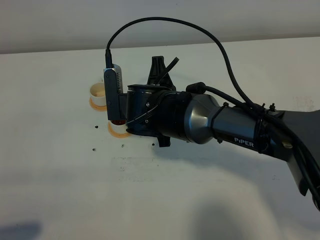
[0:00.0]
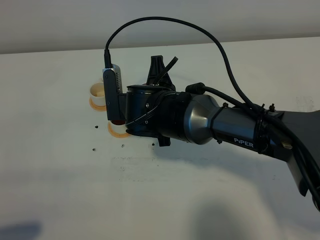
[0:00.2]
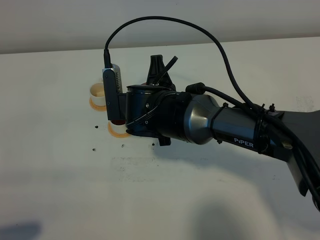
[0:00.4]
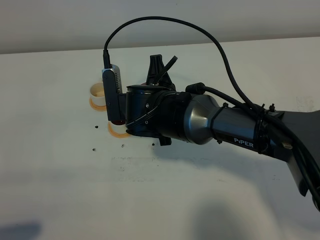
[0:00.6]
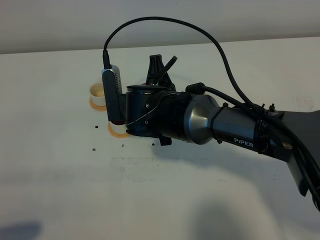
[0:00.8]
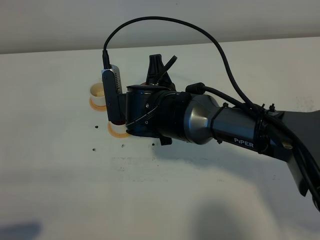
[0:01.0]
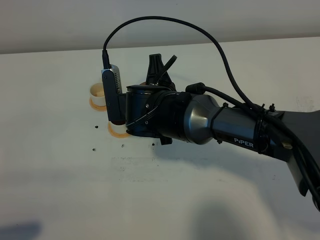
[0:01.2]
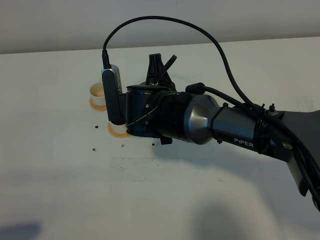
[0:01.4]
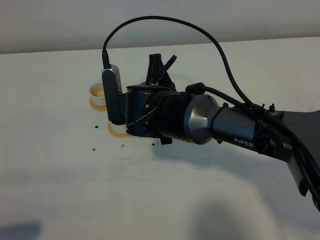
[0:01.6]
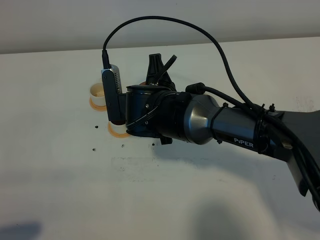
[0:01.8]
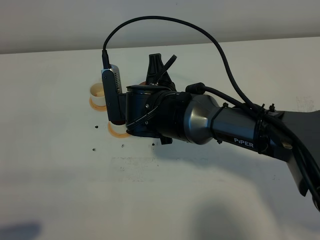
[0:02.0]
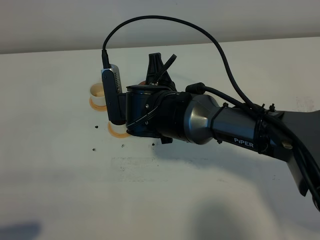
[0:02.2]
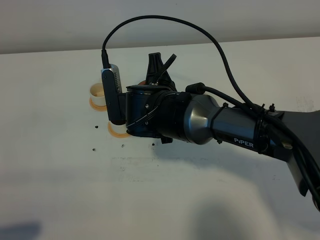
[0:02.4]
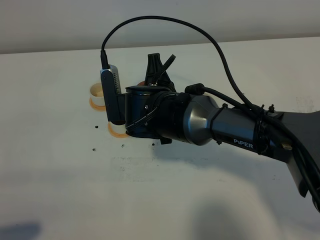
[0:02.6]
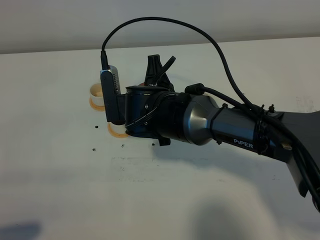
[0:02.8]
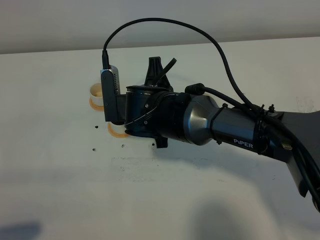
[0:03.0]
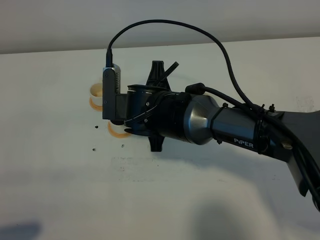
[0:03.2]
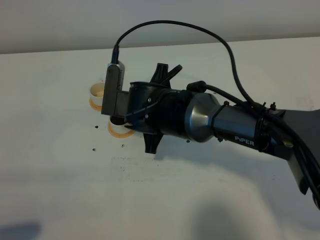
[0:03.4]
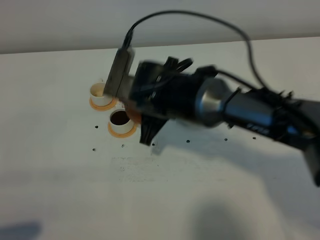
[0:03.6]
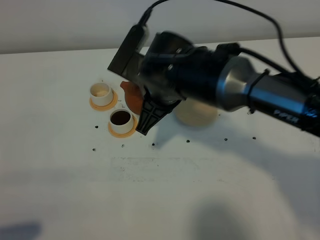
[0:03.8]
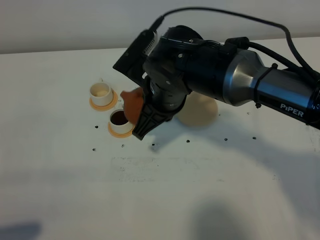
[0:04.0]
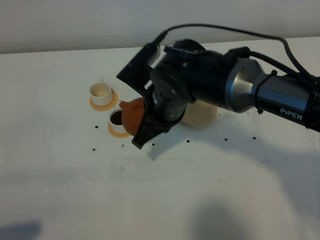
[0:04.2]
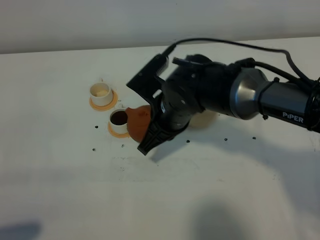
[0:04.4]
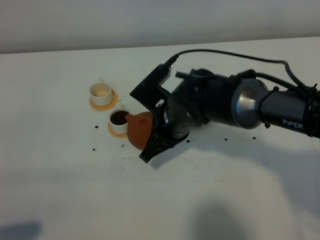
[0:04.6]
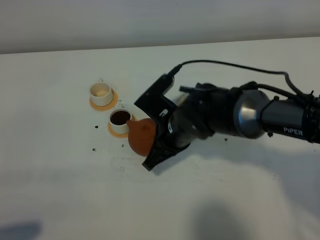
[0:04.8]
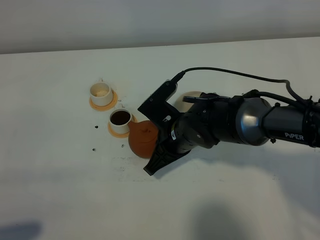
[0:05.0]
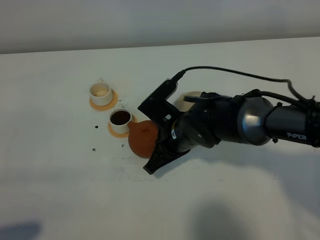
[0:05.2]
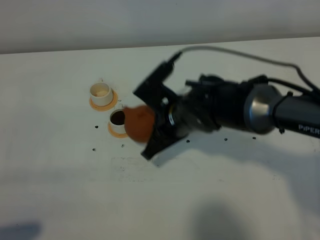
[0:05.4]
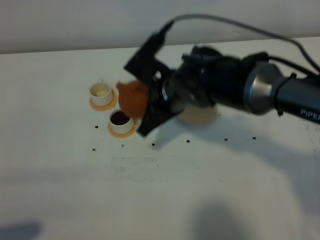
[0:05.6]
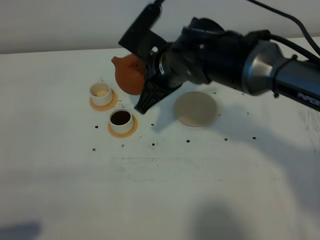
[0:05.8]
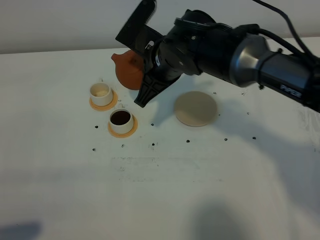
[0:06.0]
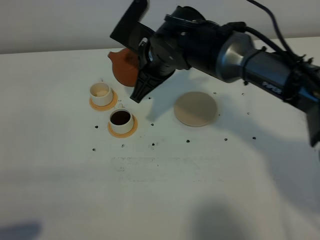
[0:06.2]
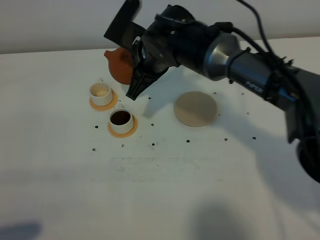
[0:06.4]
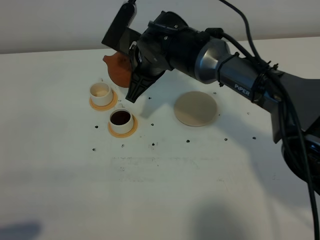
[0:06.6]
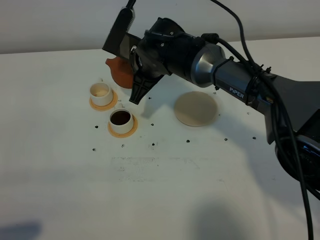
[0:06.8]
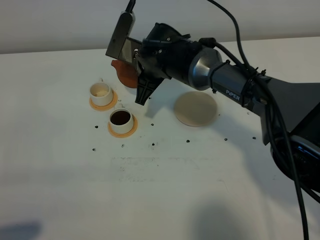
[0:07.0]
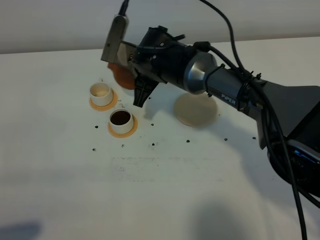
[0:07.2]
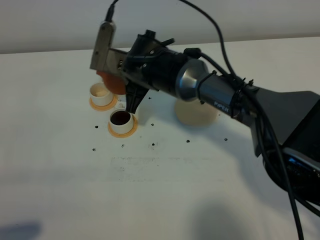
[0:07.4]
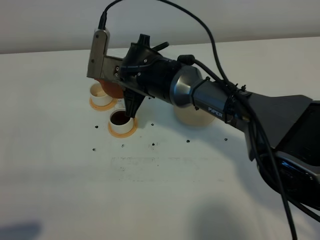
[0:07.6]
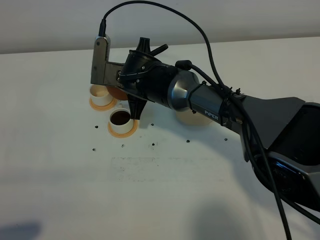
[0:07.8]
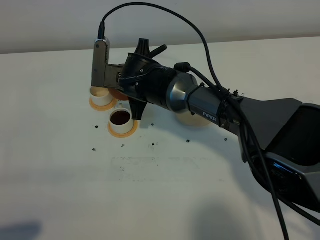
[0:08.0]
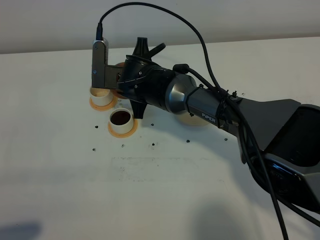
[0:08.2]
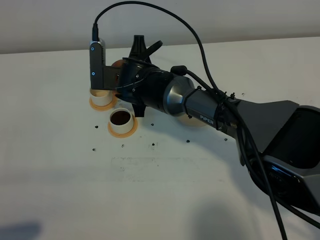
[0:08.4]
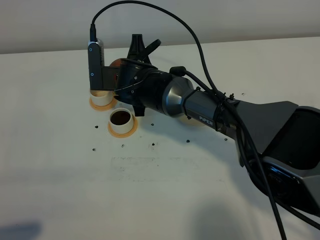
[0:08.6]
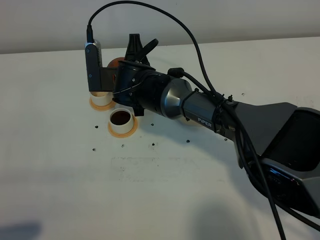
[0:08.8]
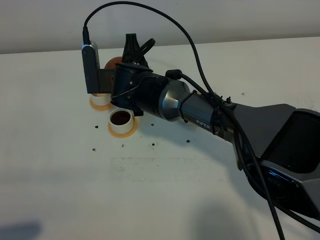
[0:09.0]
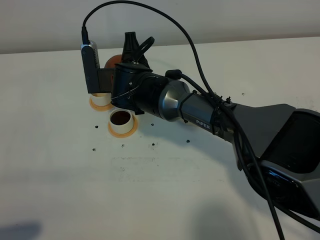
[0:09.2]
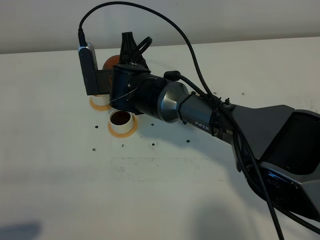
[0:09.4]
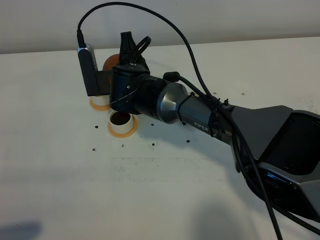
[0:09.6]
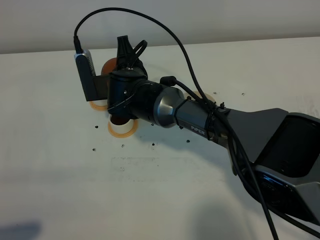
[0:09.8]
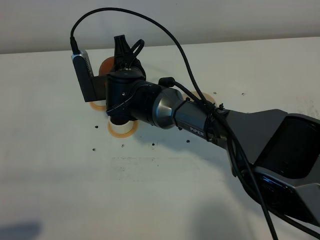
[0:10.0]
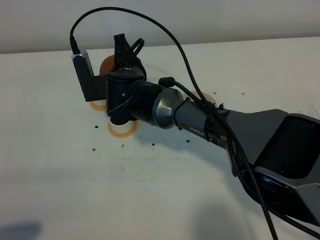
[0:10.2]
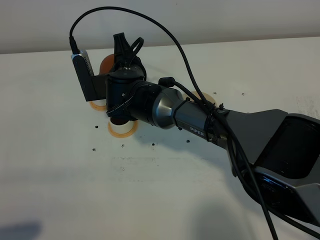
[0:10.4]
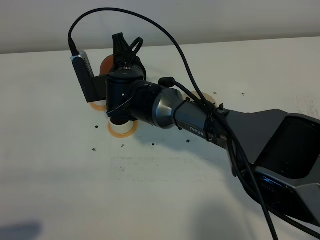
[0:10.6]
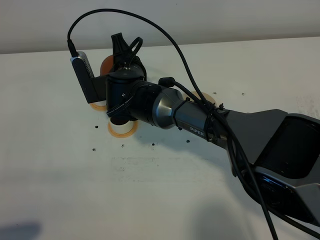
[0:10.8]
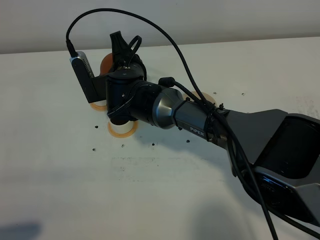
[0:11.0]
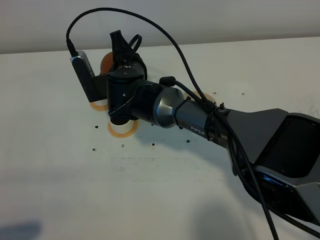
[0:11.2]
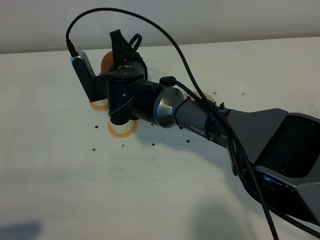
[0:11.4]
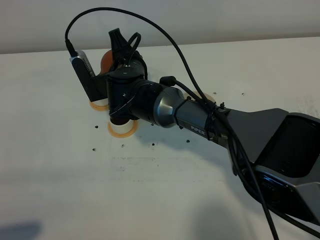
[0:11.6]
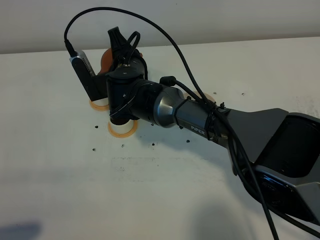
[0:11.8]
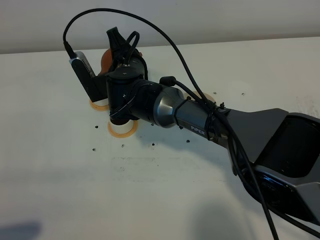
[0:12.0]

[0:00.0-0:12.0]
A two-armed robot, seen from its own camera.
Task of the whole recording: grasp the brown teapot and pour the tea into the two white teacups one by one, put the brown teapot back in its original place.
Step, 0:00.0 to 0:03.0: Pour tea into the teacup with the right gripper.
0:00.0 to 0:01.6: Both grippers stay about where they are.
0:01.6 to 0:03.0: The grippers move only a little.
0:04.4 to 0:06.0: The right gripper moves forward and upward, some 10 cm.
0:06.0 to 0:07.6: The right gripper heads downward and to the left, covering roughly 10 cm.
0:07.6 to 0:09.0: The grippers make only small movements.
0:09.0 to 0:10.4: There are only small adjustments of the grippers.
0:10.4 to 0:12.0: The grippers stay close to where they were, moving slightly.

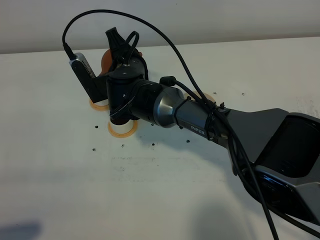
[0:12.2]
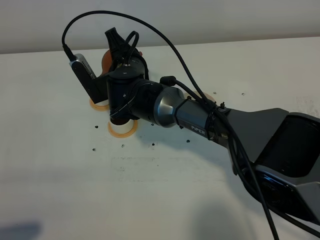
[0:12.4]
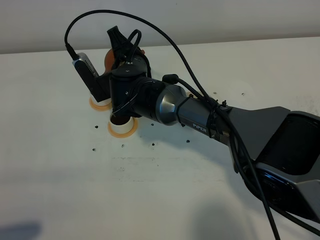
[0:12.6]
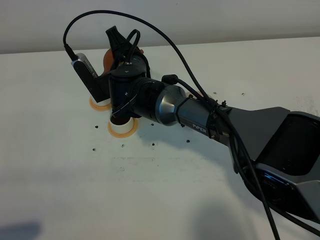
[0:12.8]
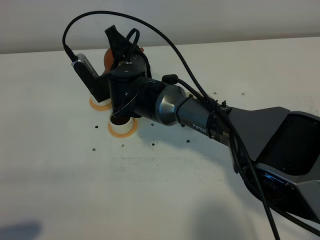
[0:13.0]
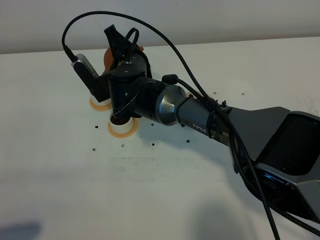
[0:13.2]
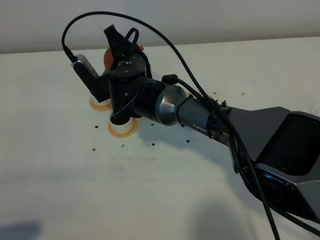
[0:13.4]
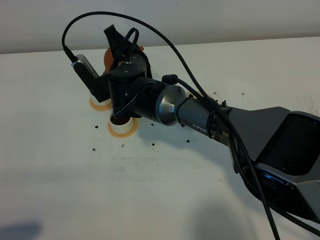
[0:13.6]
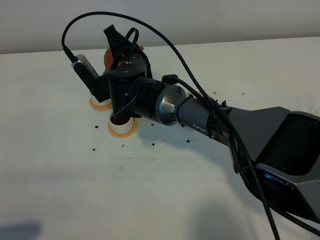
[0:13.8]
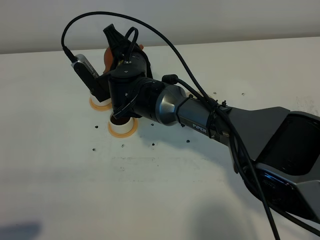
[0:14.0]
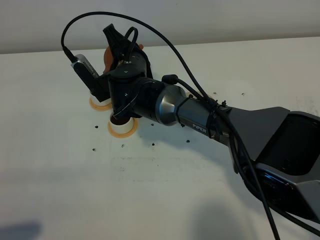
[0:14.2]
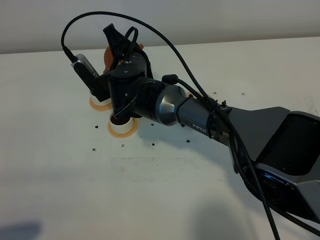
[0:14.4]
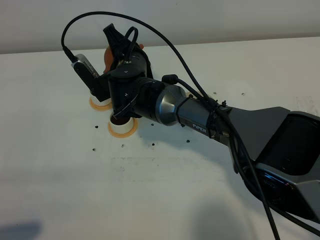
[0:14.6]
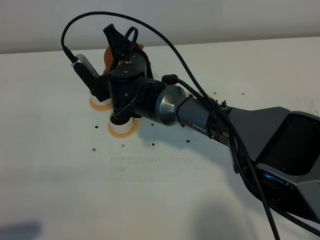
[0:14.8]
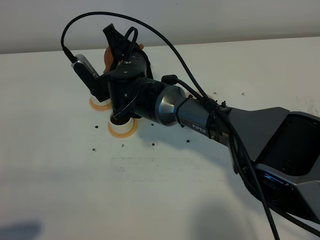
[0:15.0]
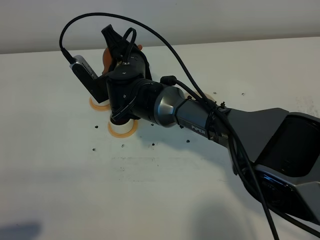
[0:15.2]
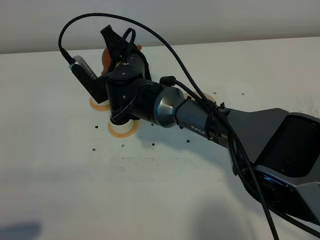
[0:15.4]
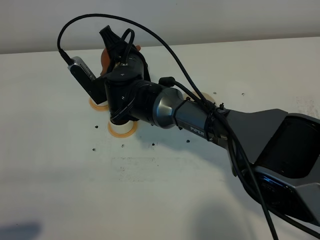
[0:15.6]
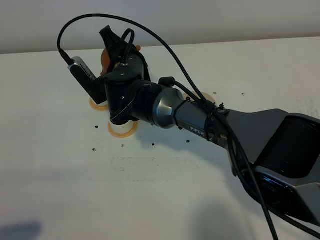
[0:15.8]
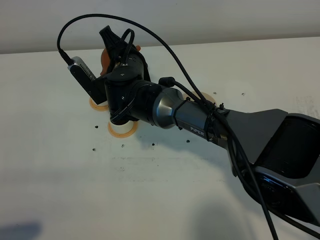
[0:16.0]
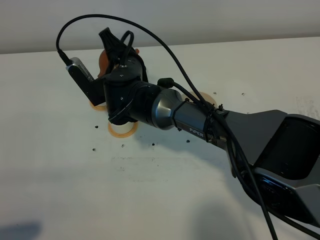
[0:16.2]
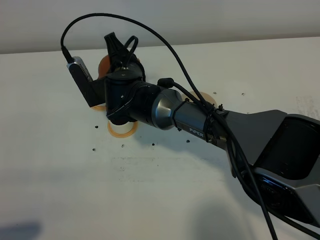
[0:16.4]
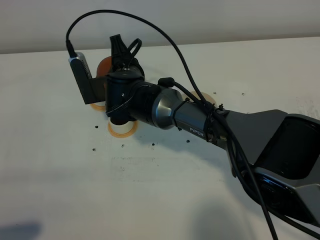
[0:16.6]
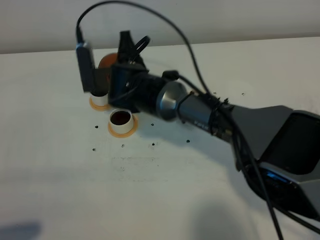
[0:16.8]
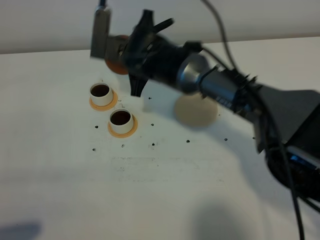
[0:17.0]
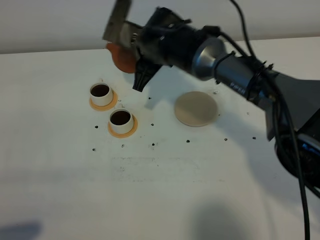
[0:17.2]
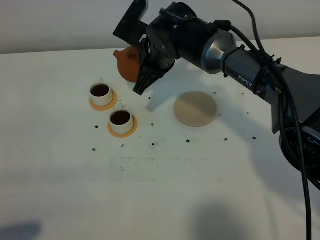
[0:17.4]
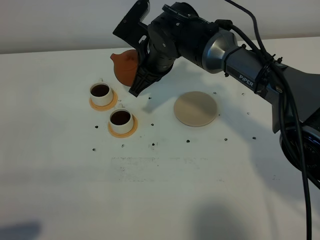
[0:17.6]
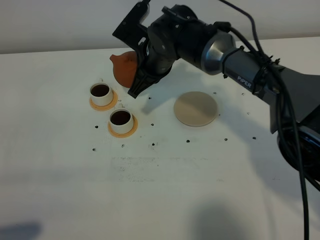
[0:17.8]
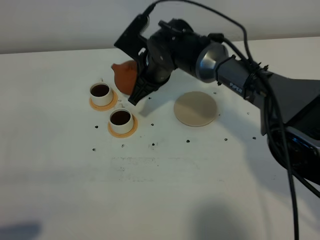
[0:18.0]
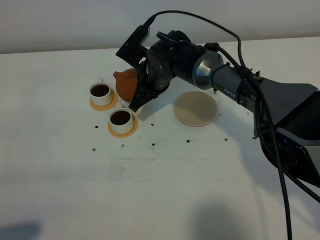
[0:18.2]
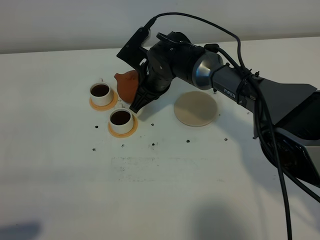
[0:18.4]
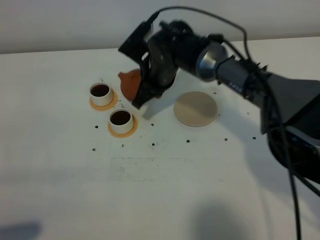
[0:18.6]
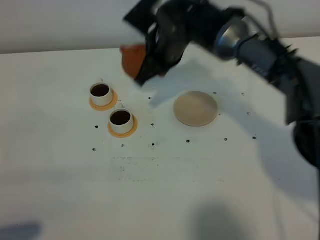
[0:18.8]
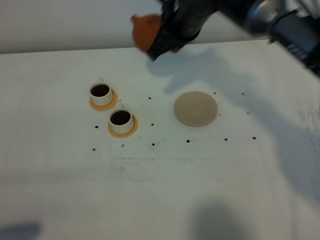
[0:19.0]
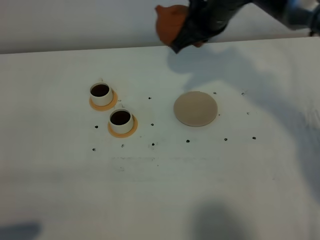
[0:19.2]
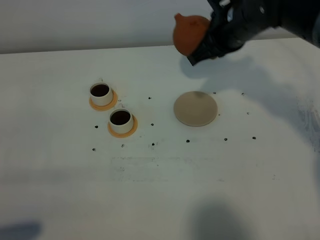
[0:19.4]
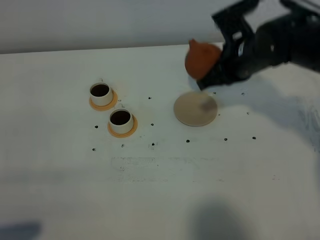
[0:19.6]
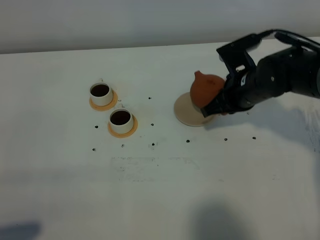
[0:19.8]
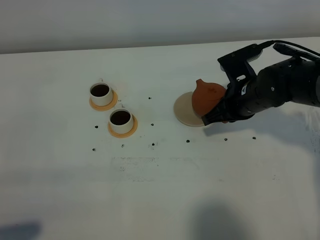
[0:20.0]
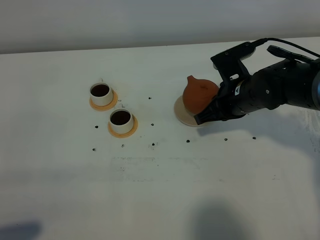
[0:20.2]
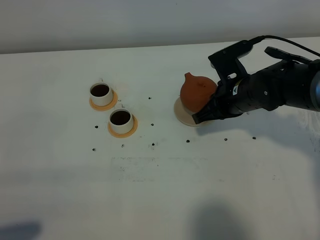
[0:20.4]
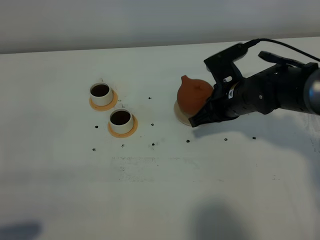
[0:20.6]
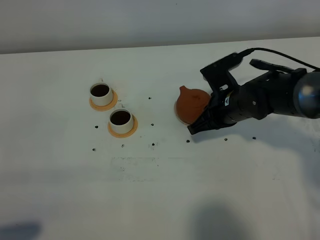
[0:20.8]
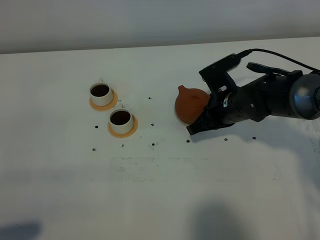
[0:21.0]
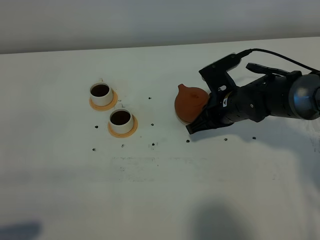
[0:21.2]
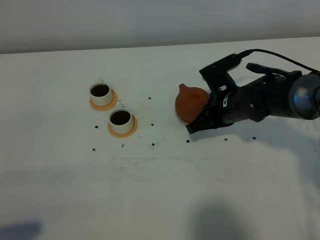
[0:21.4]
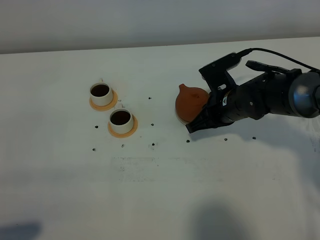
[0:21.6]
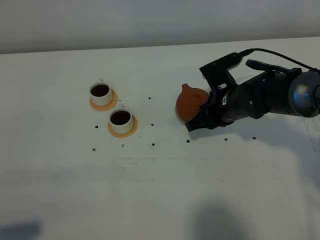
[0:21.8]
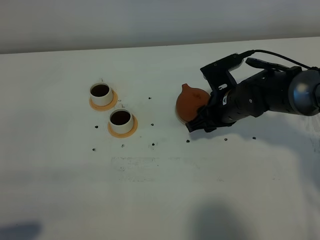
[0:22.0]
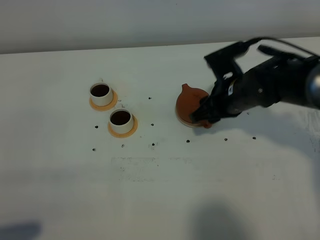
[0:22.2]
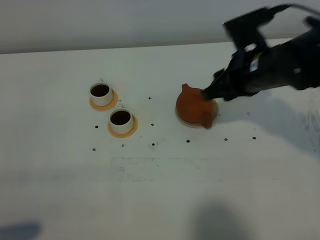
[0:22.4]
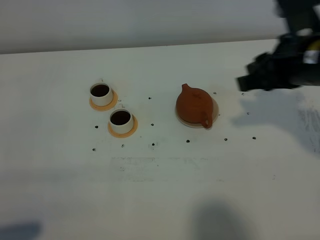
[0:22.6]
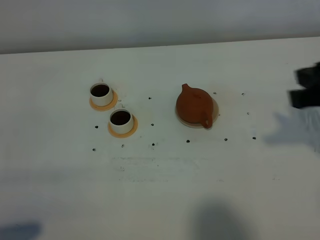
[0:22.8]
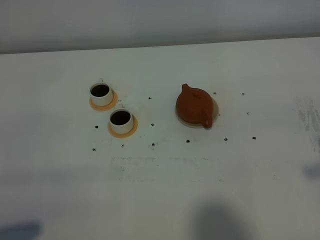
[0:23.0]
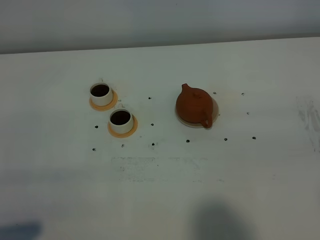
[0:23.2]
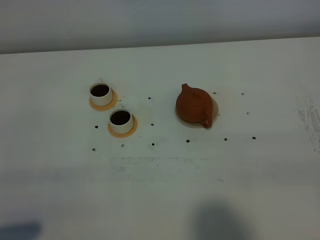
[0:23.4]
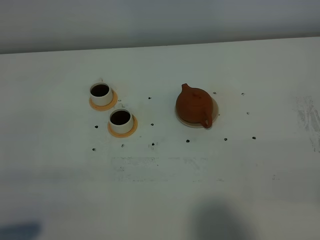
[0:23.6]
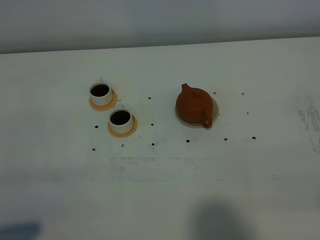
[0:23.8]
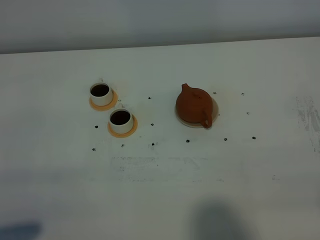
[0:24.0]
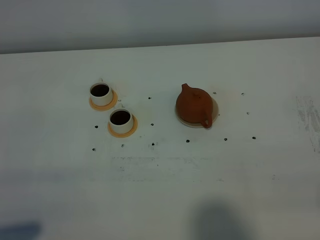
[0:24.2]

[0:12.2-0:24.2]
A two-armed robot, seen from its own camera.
Task of the whole recording: grasp the brown teapot and pour the tea into the two white teacups one by one, put the brown teapot back in its original place.
Step, 0:12.2 to 0:16.6: Pour tea into the teacup with the right gripper.
0:12.2 to 0:13.8: The grippers make only small movements.
0:13.8 to 0:15.2: Both grippers stay put.
0:16.6 to 0:18.2: The right gripper goes approximately 5 cm to the right.
0:18.2 to 0:19.8: The right gripper is displaced to the right and backward by roughly 20 cm.
0:19.8 to 0:21.2: The grippers move only a little.
0:21.2 to 0:22.6: The right gripper shifts some 20 cm upward and backward, and opens.
0:22.6 to 0:24.2: The right gripper travels backward by some 30 cm.
